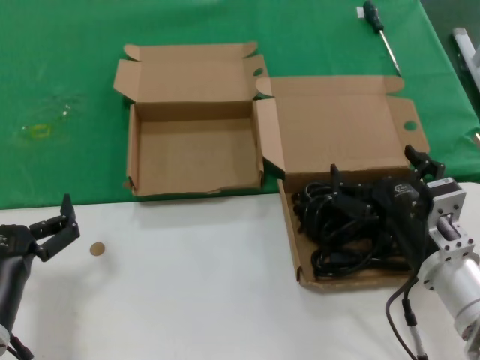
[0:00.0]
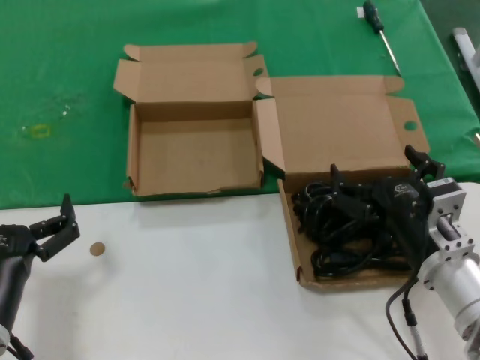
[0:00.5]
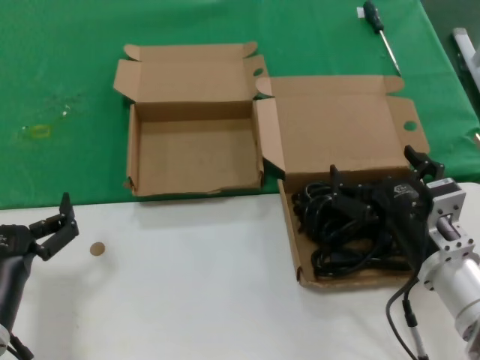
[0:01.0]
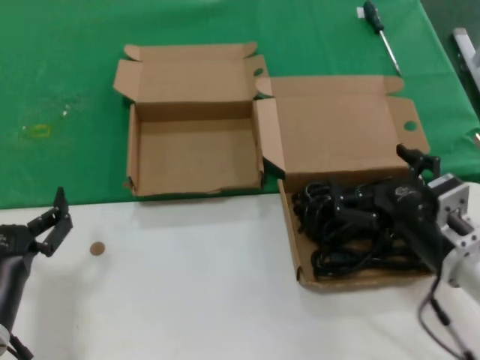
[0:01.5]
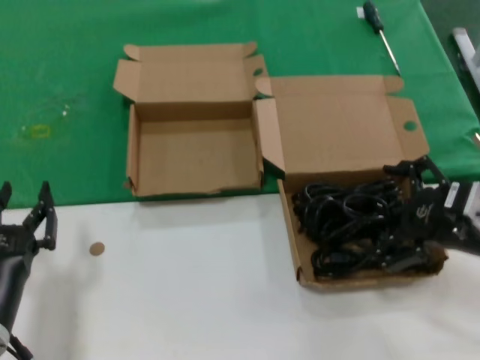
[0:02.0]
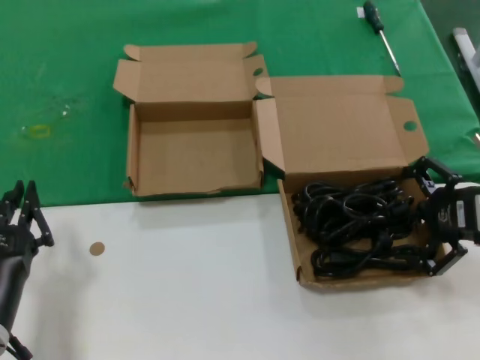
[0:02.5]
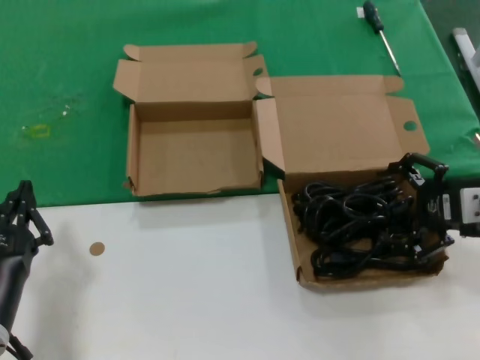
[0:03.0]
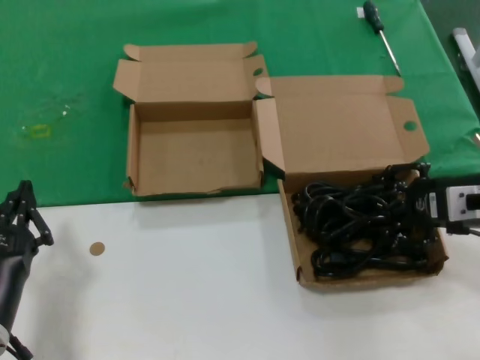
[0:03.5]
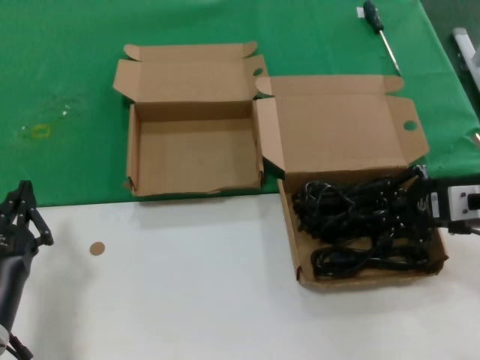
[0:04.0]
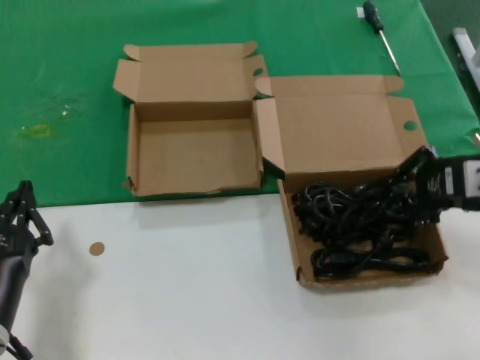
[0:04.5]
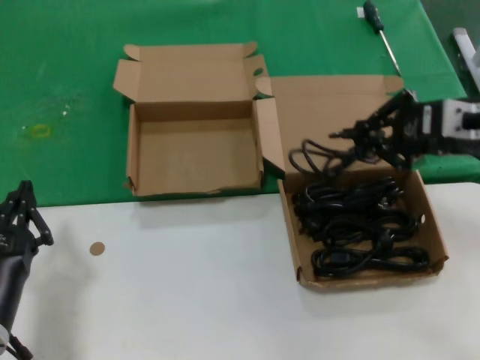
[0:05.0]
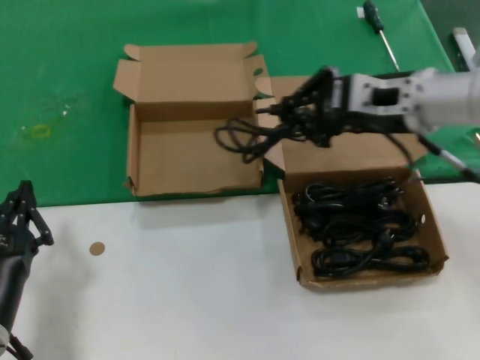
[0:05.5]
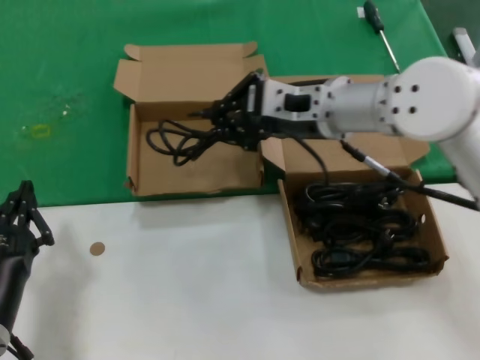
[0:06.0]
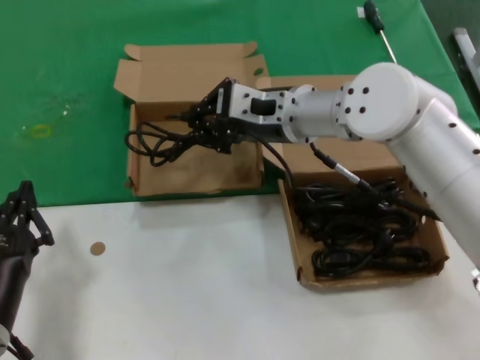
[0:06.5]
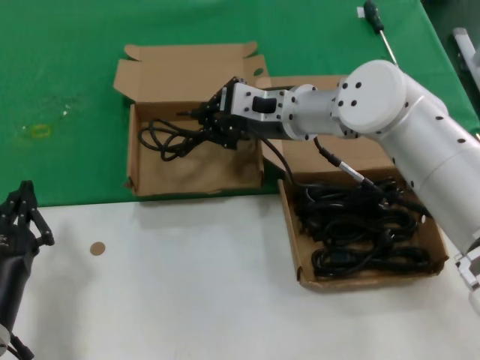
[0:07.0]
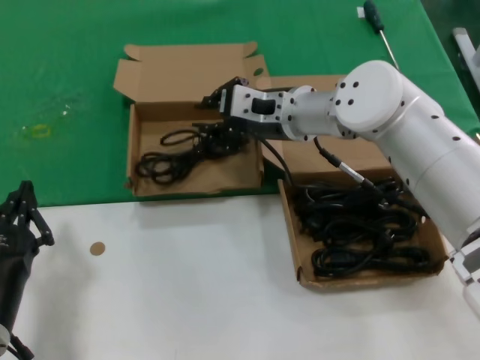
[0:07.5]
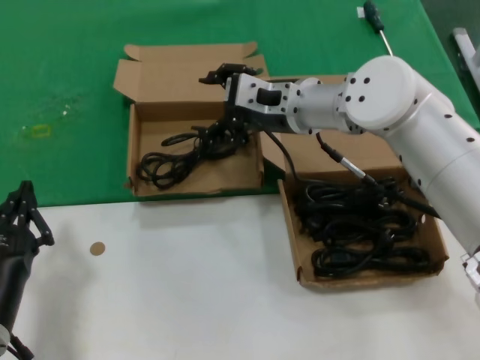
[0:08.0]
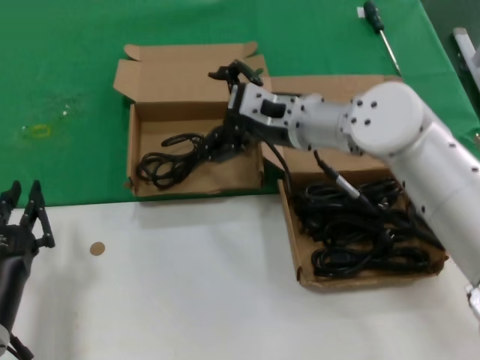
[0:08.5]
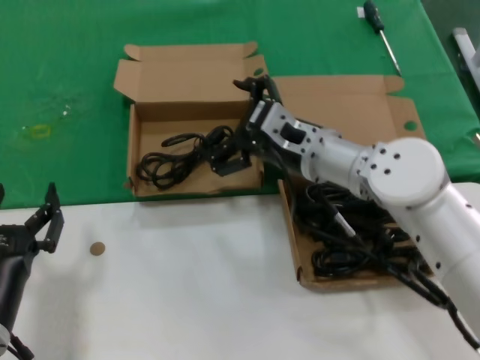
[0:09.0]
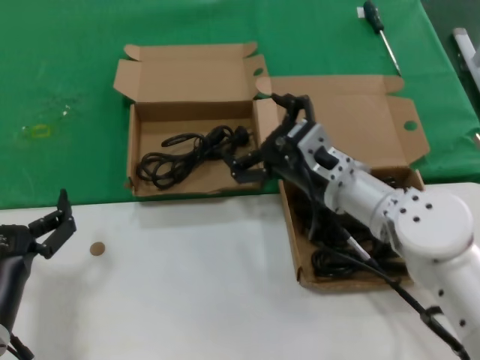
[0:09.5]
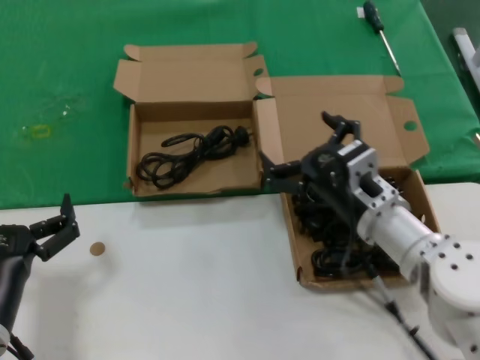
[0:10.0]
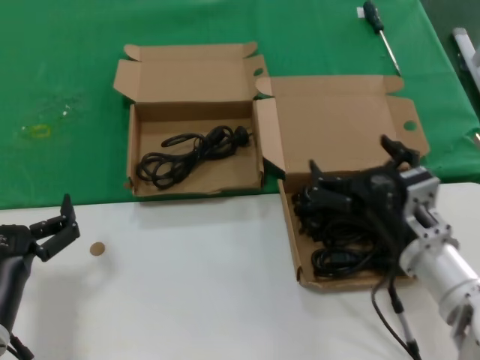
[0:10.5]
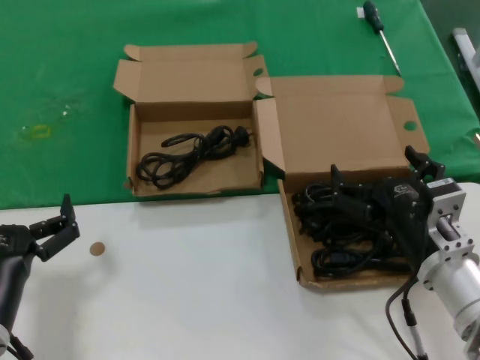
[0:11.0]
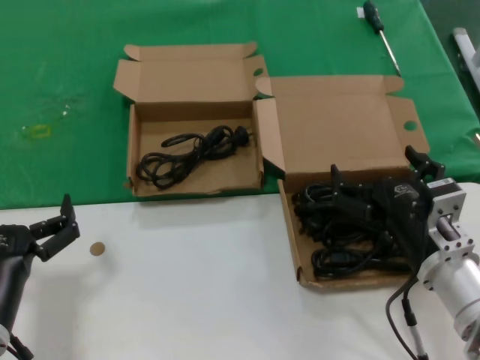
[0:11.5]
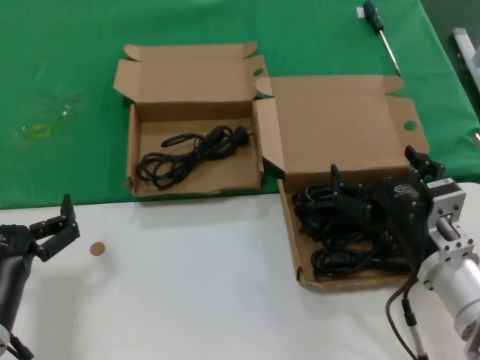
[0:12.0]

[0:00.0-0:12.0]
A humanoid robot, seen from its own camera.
Task of the whole recording: take the parts from the box containing them and put them into an empty box.
Step, 0.0 to 3.5 s: Grasp the data cable.
Step, 4.0 to 8.5 s: Place the data cable in the another box.
0.0 to 2.0 s: The right hand shifts about 15 cm to the right and upward.
2.0 to 4.0 s: The right hand shifts roughly 5 cm forward.
4.0 to 6.0 s: The right hand shifts approximately 20 cm to the left and forward.
6.0 to 8.0 s: The right hand heads forward, covering roughly 5 cm.
8.0 to 10.0 s: The right hand is displaced backward, downward and to the right by some 20 cm.
10.0 to 12.0 s: The right hand shifts some 10 cm backward.

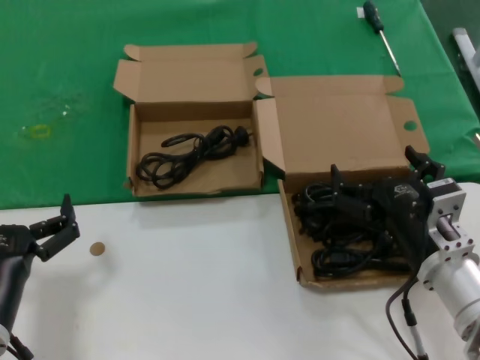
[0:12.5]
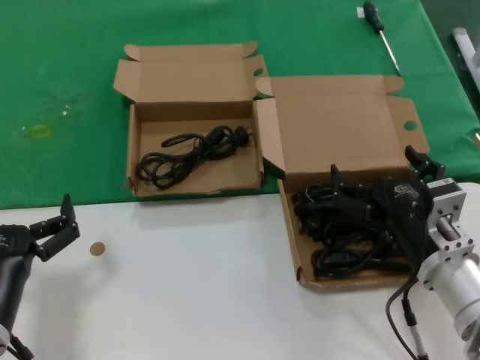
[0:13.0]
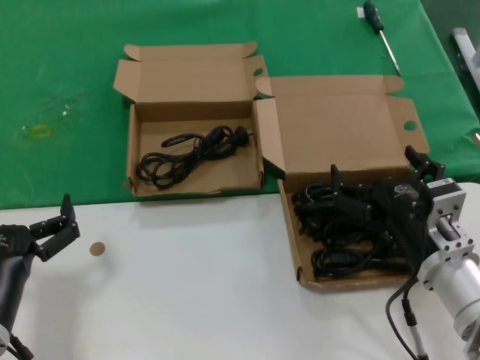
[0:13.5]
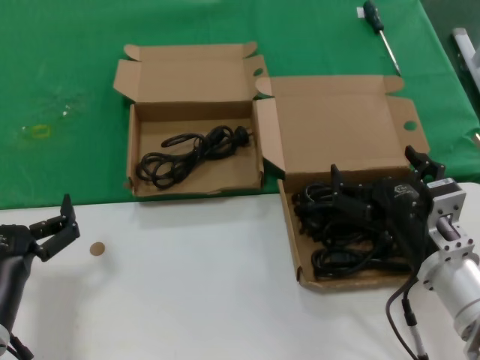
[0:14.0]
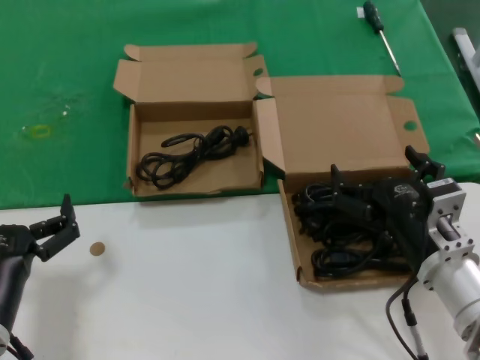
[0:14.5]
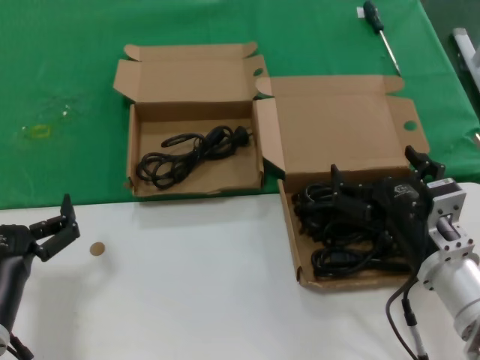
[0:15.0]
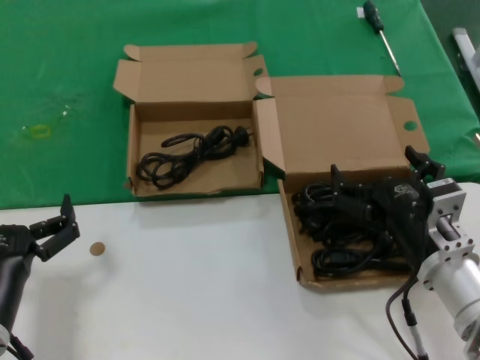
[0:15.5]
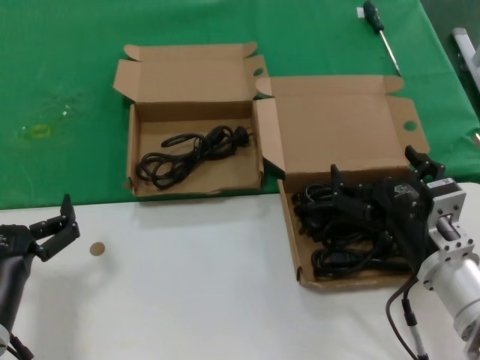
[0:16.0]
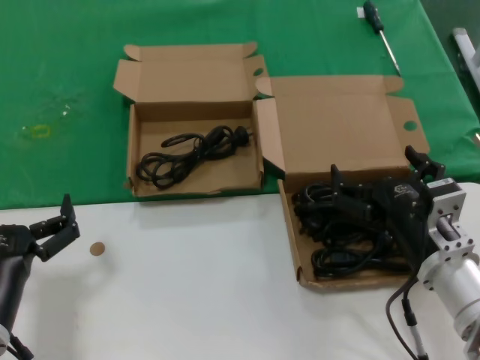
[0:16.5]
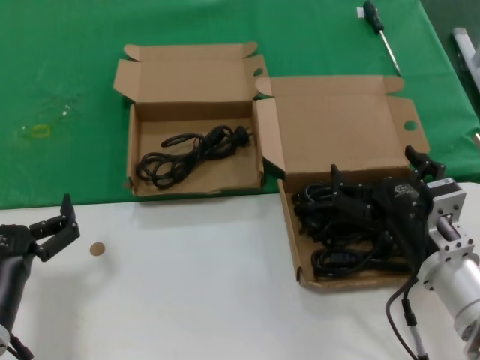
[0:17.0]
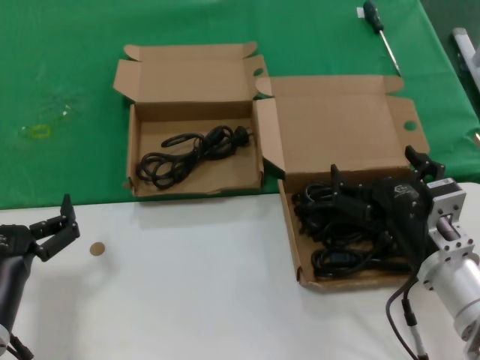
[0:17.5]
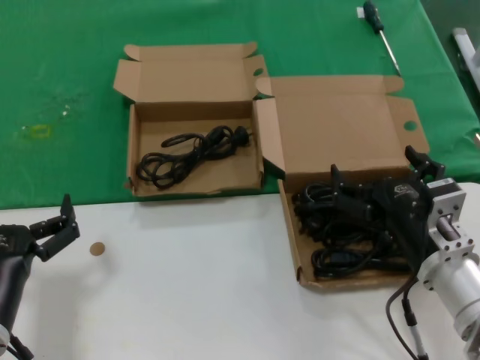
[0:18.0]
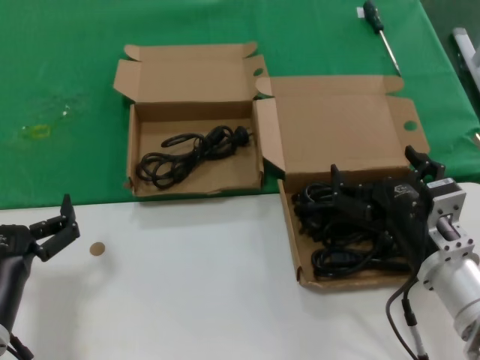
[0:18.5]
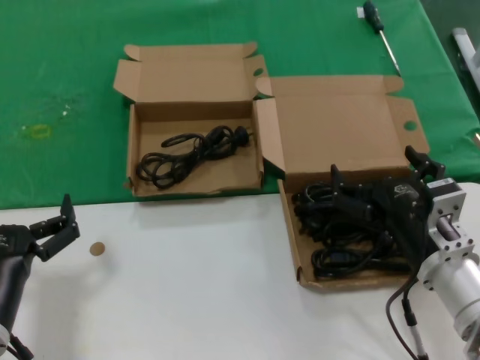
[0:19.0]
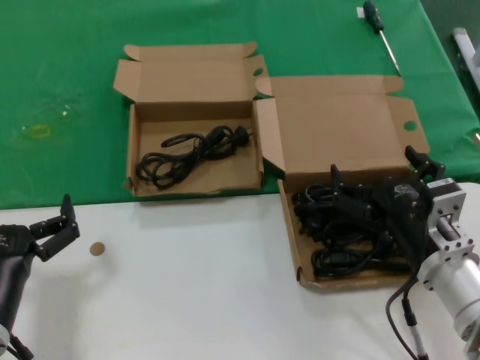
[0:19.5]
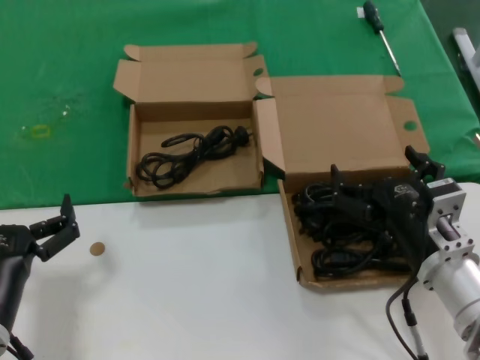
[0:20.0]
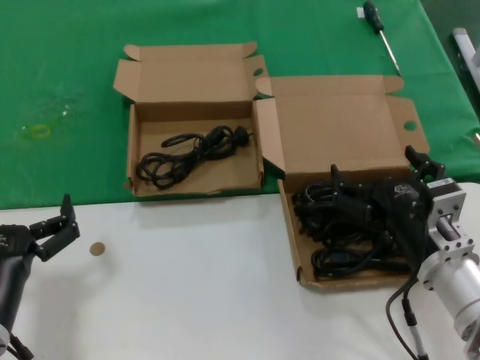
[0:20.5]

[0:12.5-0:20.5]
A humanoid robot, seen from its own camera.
Task of the whole recording: take the parts from the box containing them and put them into an empty box.
12.5 to 20.5 s: Neither hand changes place.

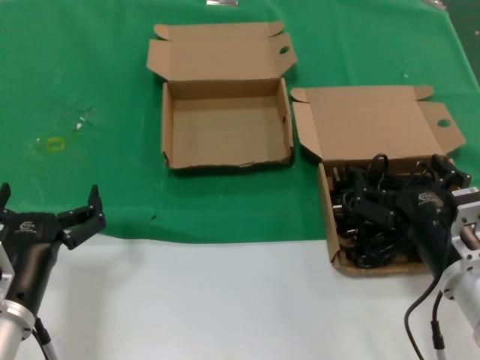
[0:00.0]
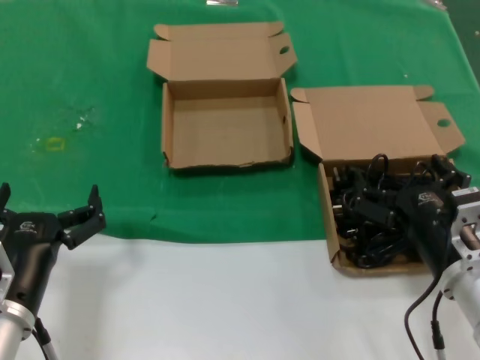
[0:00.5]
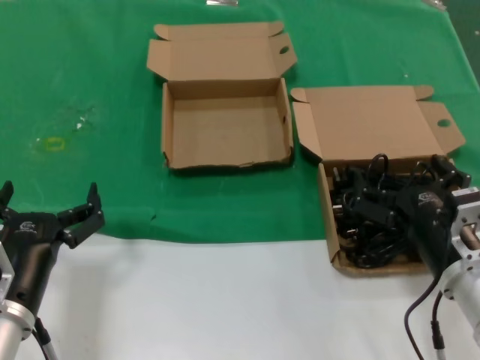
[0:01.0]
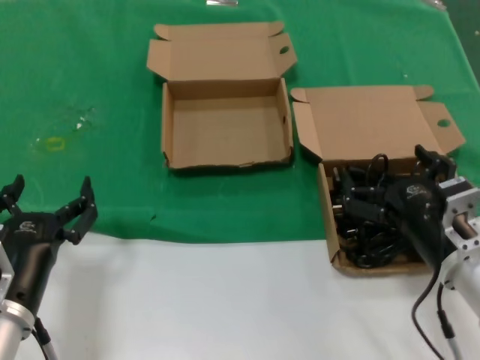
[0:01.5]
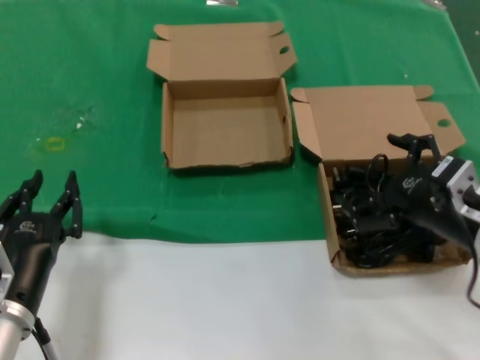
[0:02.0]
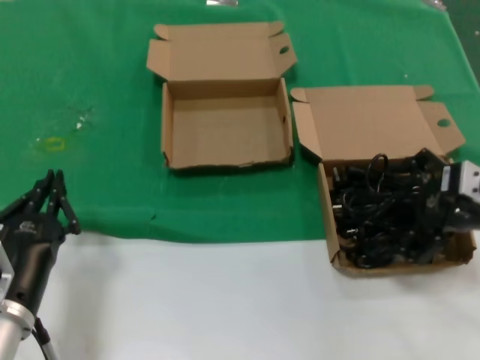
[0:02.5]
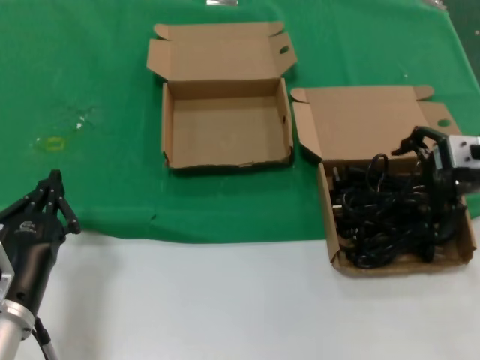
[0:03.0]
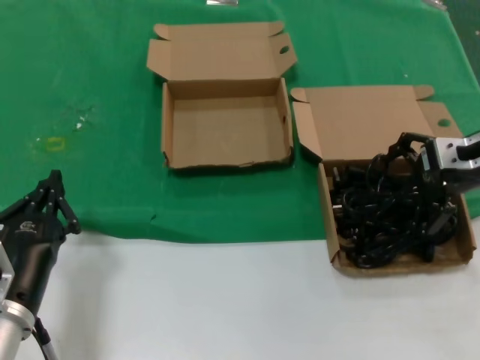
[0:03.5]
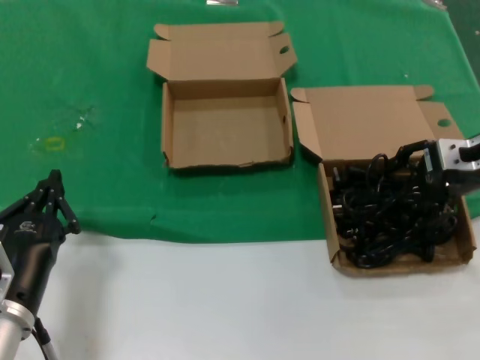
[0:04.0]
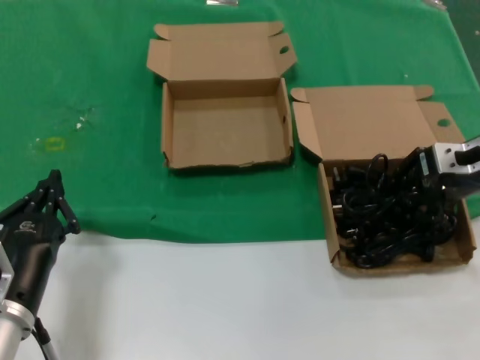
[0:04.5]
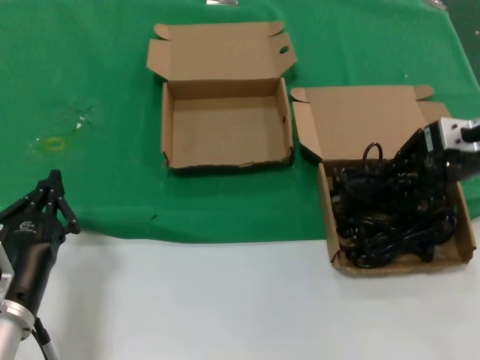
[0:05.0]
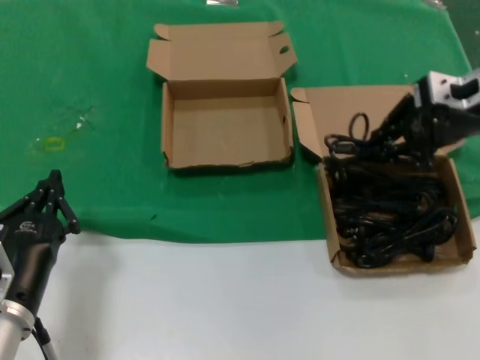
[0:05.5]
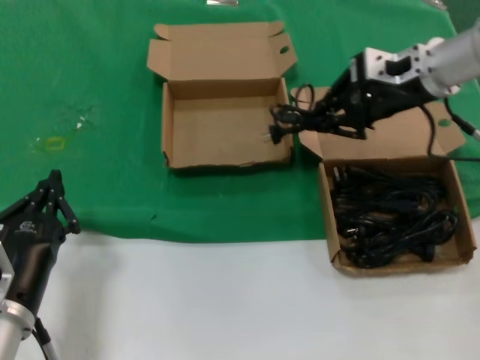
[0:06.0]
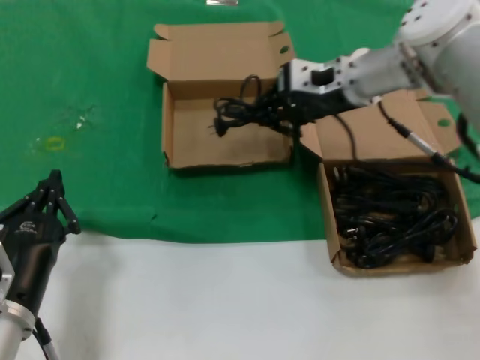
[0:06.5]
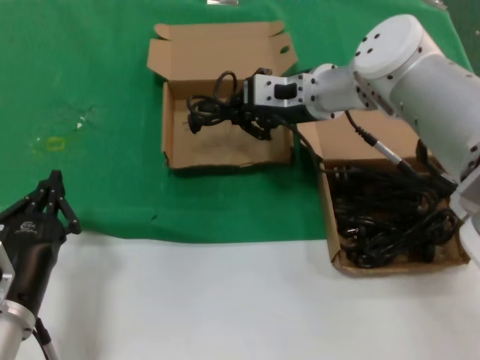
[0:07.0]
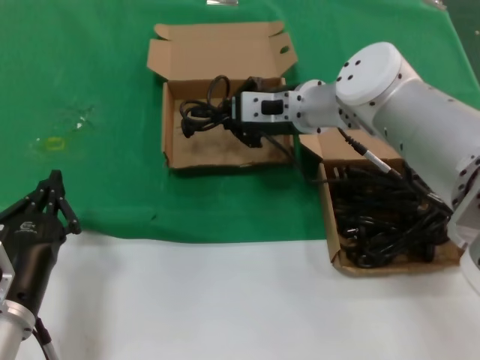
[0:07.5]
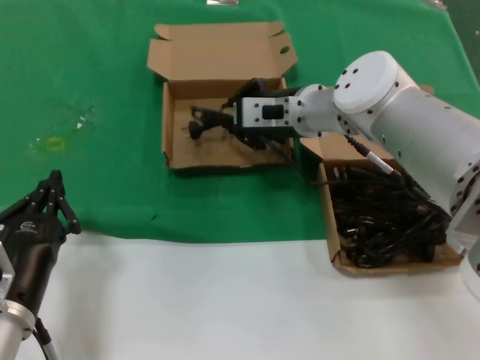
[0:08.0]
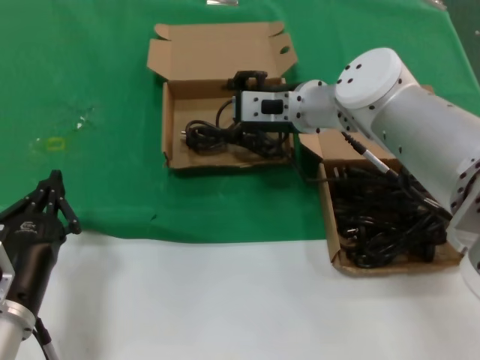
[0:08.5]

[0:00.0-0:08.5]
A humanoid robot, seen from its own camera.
Task of the whole recording: take the parts from the box containing them and put them into an empty box.
Step, 0.0 to 3.0 s: Grasp the data cable.
Step, 3.5 to 8.0 s: Place the data cable in the another box.
0.0 to 2.0 s: The right hand moves upward, approximately 5 cm.
2.0 to 4.0 s: The right hand moves forward and upward, roughly 15 cm.
4.0 to 6.5 s: The right hand goes roughly 20 cm to the left and forward.
6.5 to 8.5 s: The right hand moves to the left and downward, some 10 cm.
